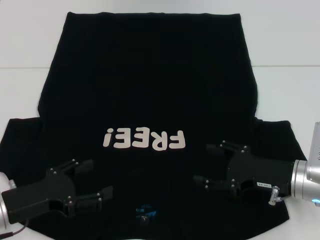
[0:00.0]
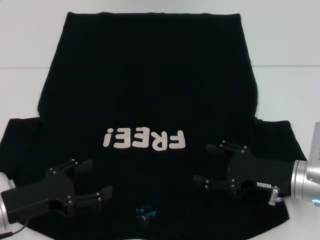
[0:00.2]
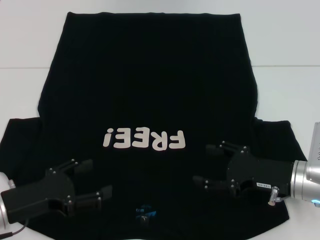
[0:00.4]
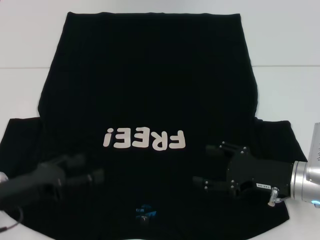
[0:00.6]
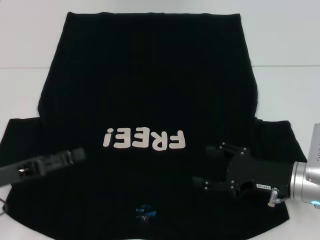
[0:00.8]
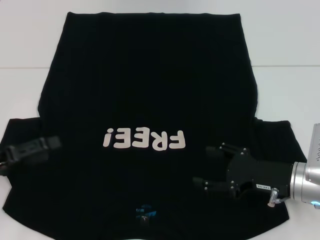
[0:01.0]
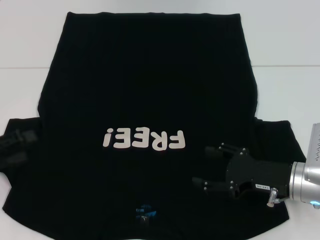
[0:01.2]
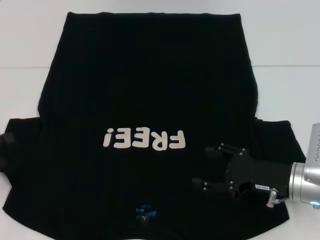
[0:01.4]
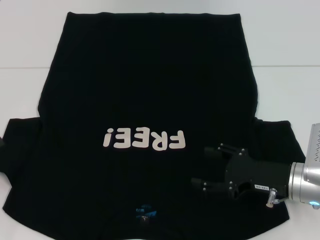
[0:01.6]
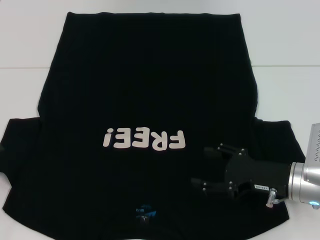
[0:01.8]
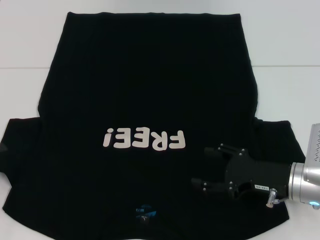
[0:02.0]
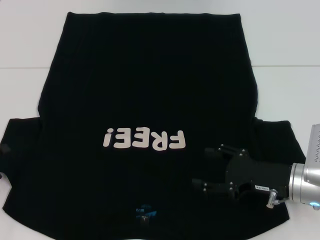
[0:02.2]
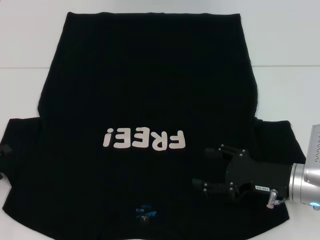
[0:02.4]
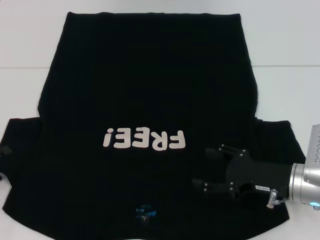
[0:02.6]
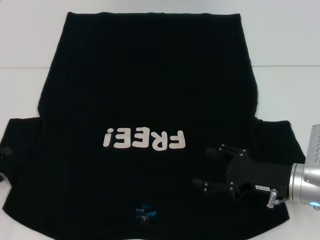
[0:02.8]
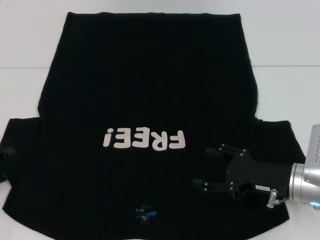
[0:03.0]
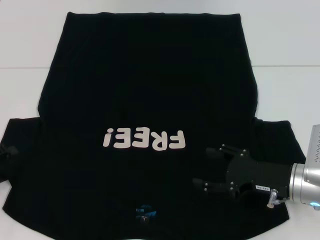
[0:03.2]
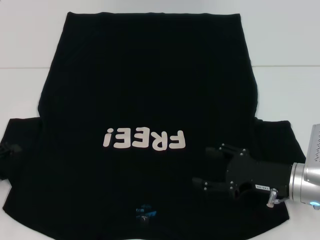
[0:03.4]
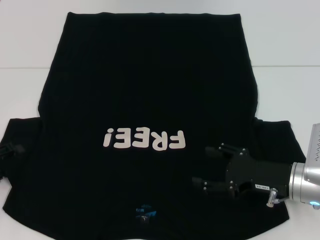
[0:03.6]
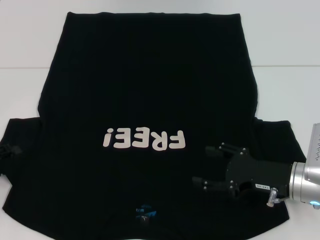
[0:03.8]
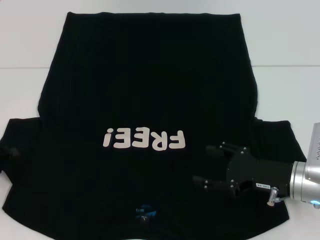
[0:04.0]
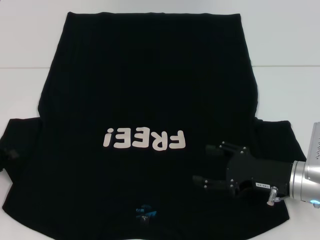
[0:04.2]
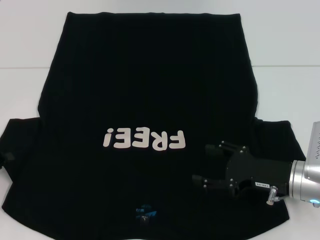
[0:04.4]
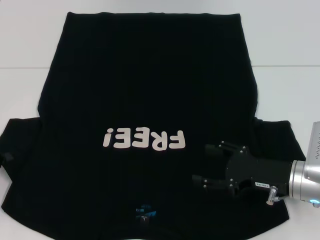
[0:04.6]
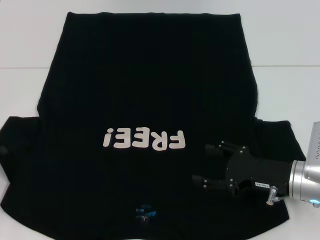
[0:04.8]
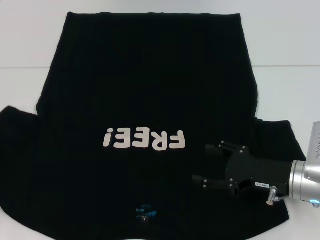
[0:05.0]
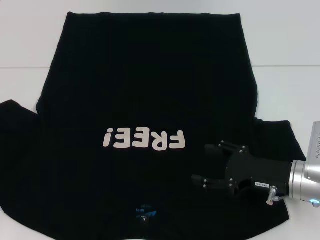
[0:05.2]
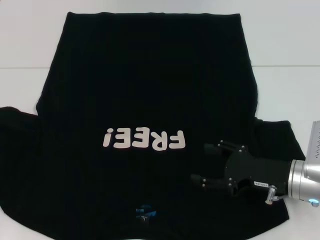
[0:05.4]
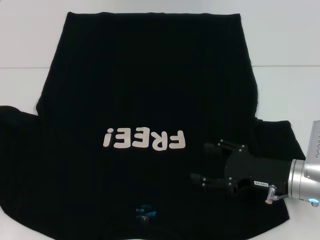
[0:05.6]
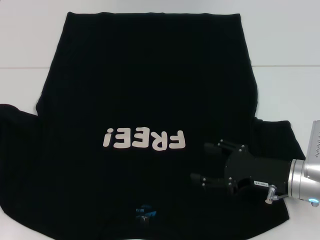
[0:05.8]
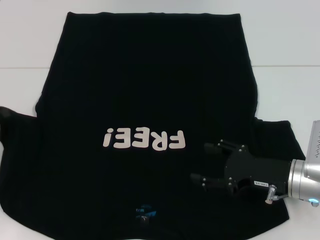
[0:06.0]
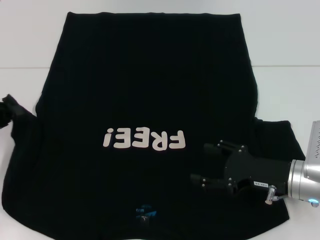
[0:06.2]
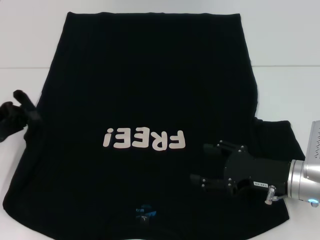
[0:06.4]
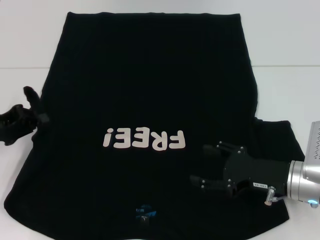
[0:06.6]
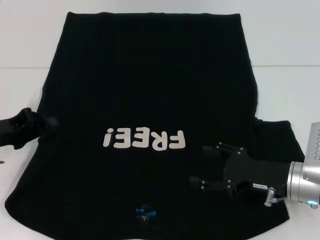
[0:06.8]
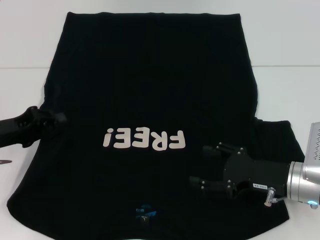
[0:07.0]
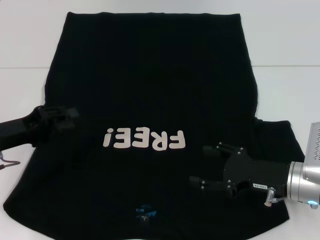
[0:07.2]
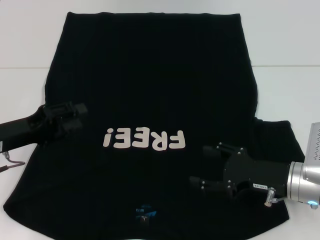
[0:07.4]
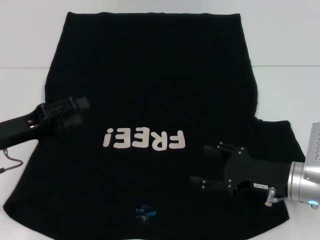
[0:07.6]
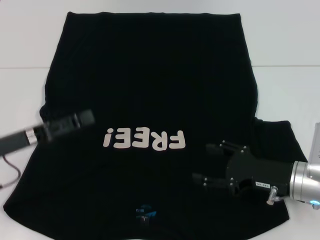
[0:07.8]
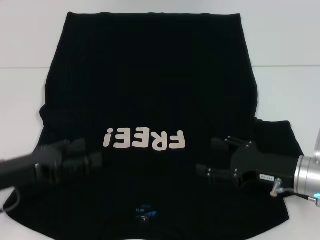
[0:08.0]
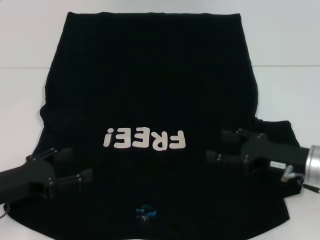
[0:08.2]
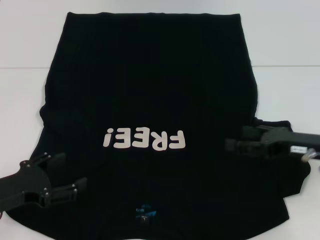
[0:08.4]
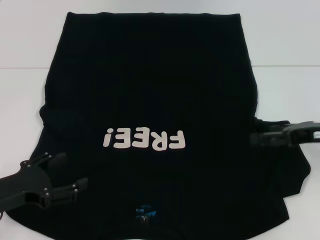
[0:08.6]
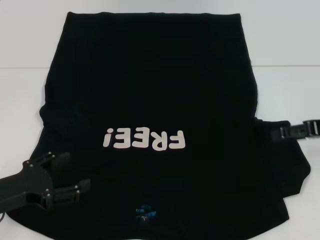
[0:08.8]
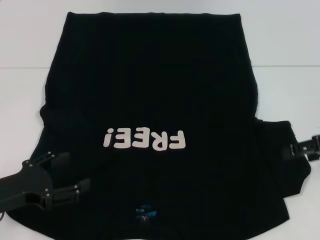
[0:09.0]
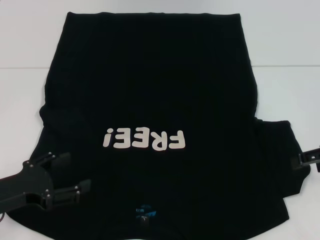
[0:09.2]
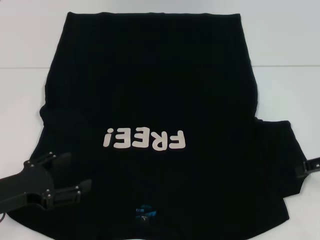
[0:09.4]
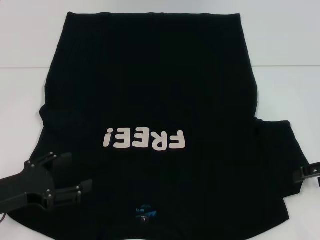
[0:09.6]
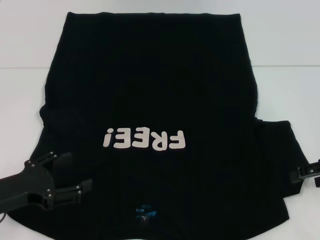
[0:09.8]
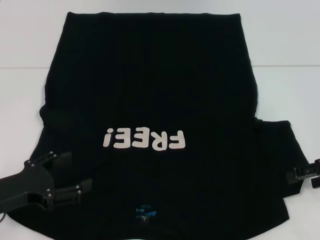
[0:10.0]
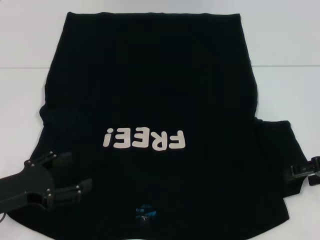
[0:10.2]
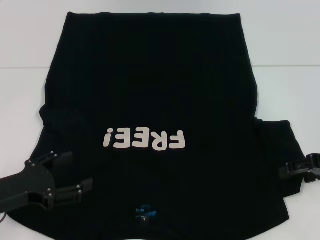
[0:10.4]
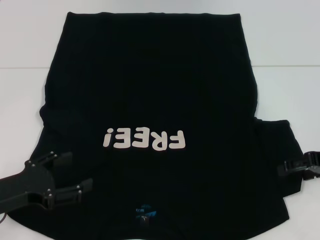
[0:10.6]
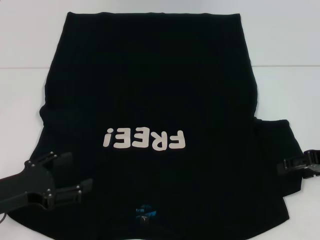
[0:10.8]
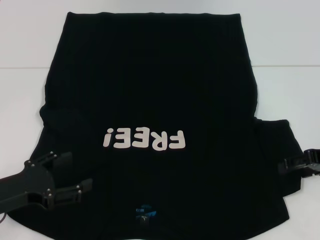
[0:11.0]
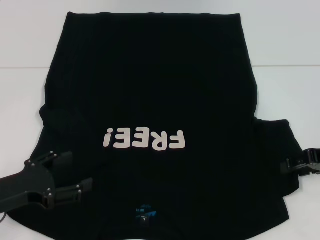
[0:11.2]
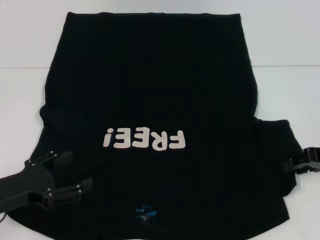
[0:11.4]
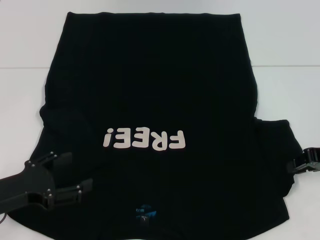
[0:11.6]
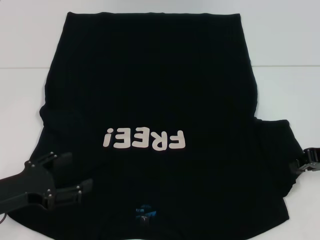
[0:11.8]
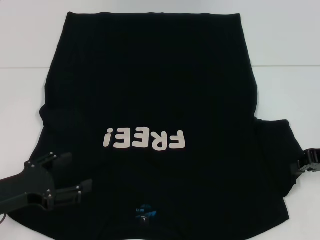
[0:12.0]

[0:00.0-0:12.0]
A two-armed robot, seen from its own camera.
Step, 0:00.0 to 0:07.8: Fold the bottom left sleeve with your left hand.
0:00.0 to 0:01.6: The left gripper moves to the left, some 15 cm.
0:04.4 to 0:06.0: The left gripper travels upward by some 5 cm.
0:06.0 to 0:07.6: The left gripper moves to the right, some 10 cm, and opens its fingers.
0:07.6 to 0:09.0: The left gripper goes approximately 5 cm backward, and opens up. The right gripper shifts some 15 cm upward and to the right.
0:09.0 to 0:10.4: There are only small adjustments of the grippers.
0:10.4 to 0:12.0: The right gripper closes.

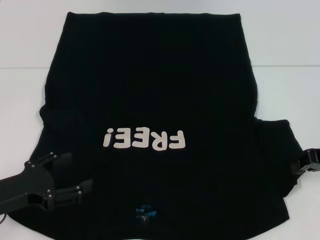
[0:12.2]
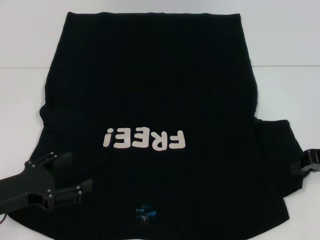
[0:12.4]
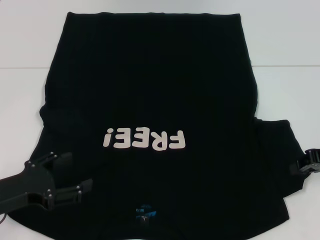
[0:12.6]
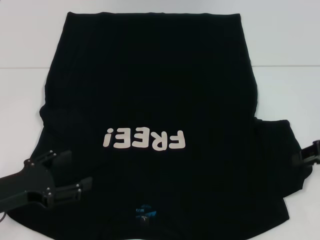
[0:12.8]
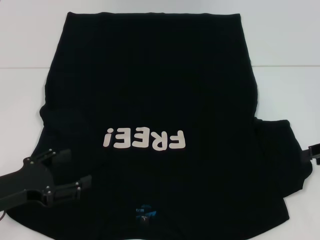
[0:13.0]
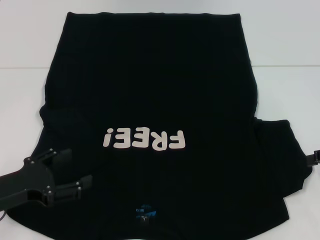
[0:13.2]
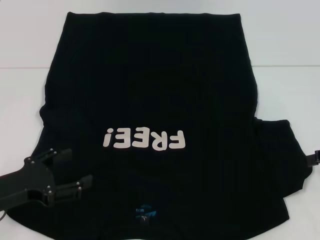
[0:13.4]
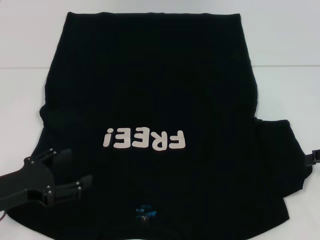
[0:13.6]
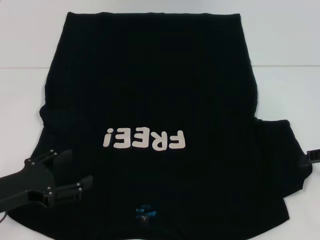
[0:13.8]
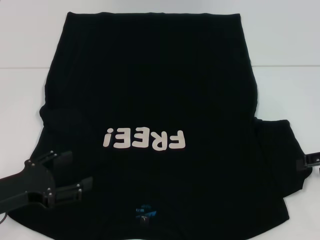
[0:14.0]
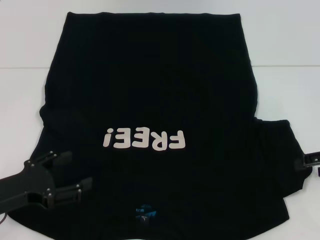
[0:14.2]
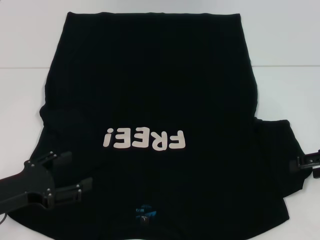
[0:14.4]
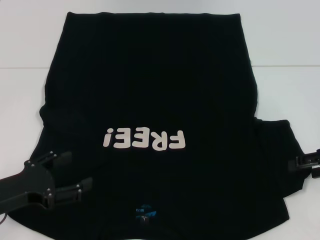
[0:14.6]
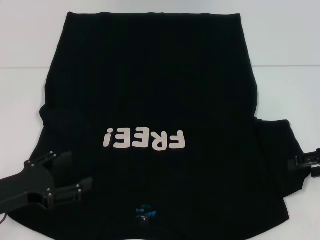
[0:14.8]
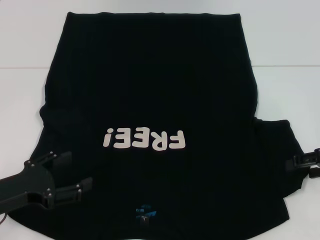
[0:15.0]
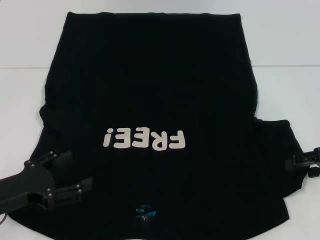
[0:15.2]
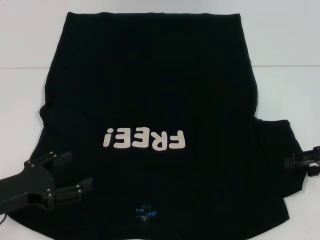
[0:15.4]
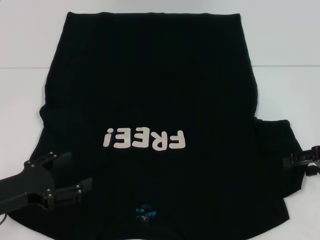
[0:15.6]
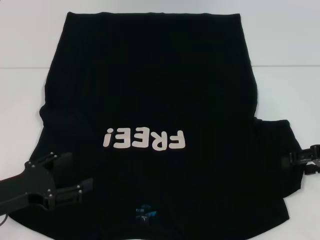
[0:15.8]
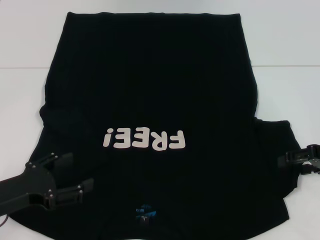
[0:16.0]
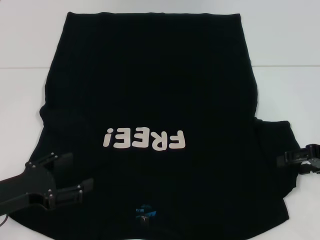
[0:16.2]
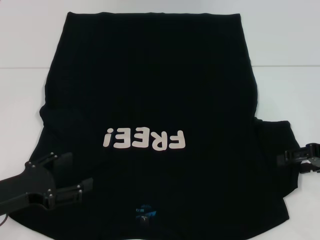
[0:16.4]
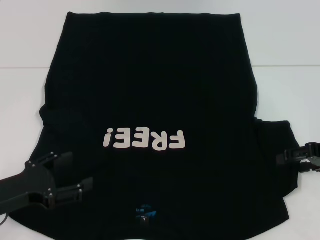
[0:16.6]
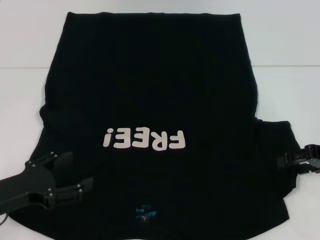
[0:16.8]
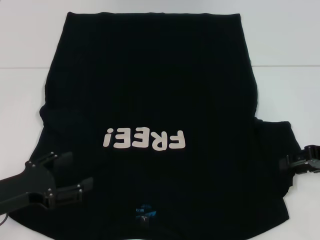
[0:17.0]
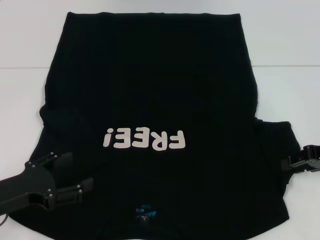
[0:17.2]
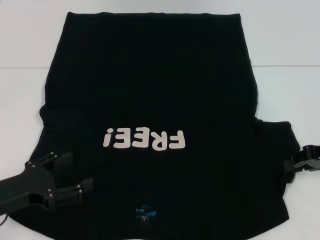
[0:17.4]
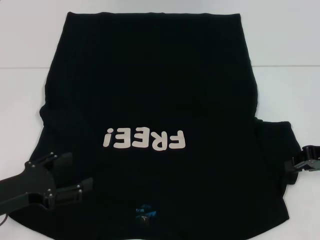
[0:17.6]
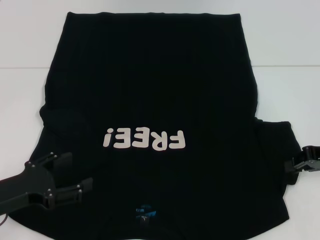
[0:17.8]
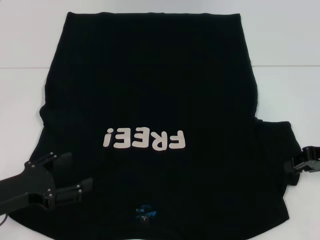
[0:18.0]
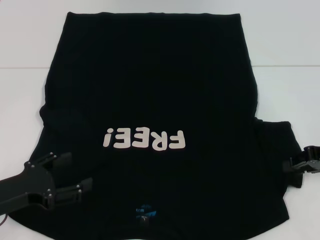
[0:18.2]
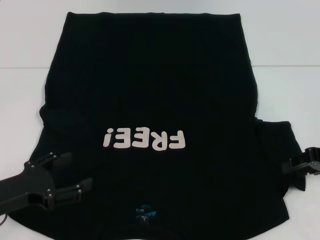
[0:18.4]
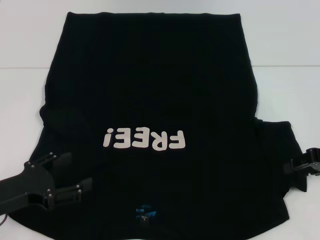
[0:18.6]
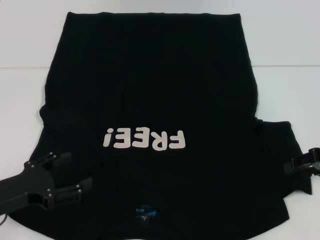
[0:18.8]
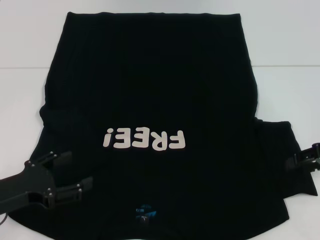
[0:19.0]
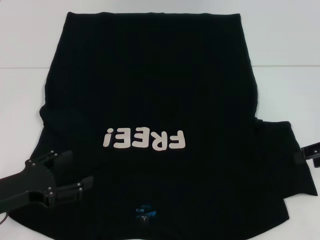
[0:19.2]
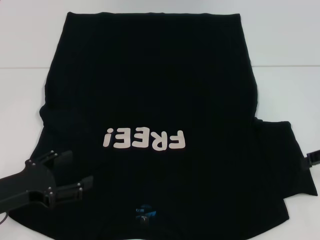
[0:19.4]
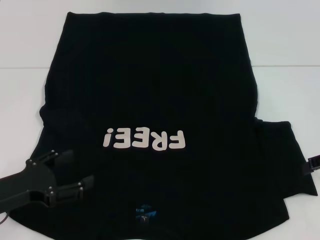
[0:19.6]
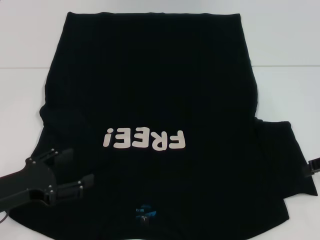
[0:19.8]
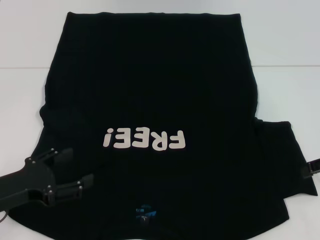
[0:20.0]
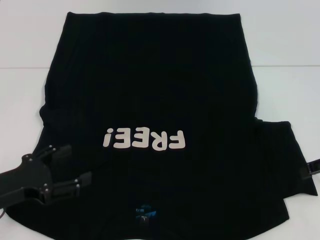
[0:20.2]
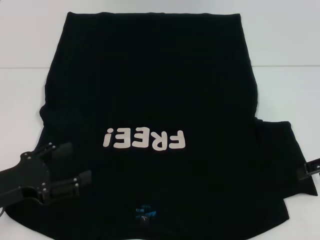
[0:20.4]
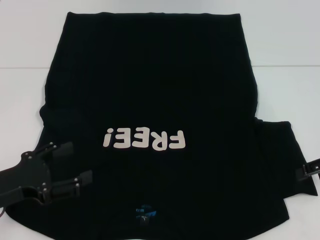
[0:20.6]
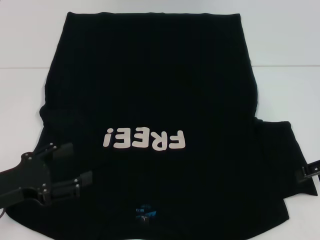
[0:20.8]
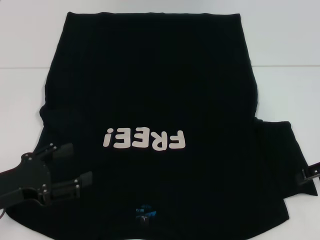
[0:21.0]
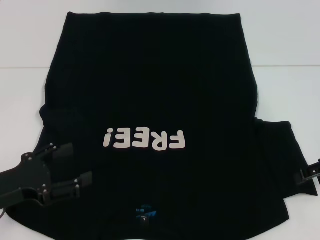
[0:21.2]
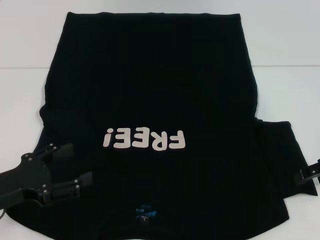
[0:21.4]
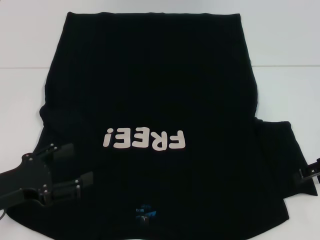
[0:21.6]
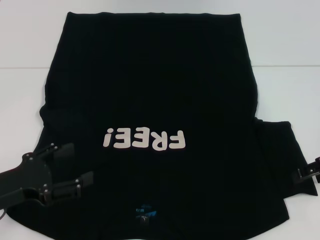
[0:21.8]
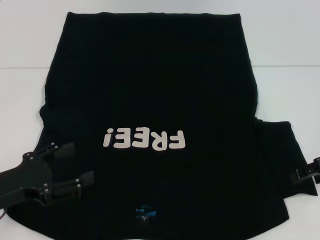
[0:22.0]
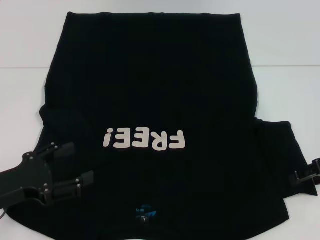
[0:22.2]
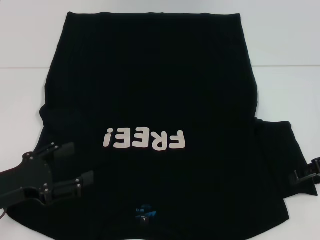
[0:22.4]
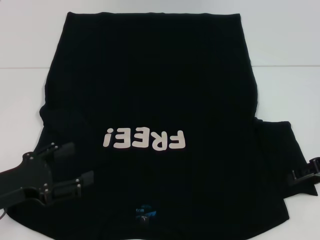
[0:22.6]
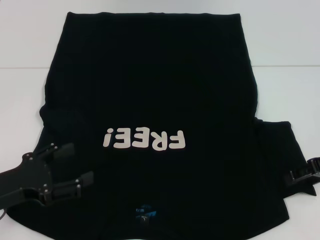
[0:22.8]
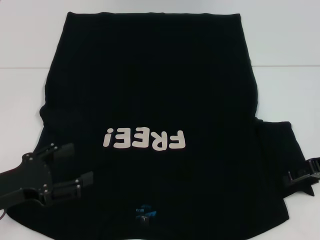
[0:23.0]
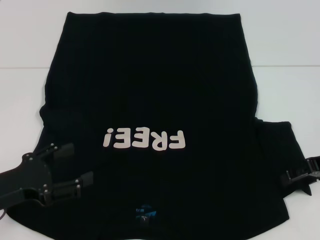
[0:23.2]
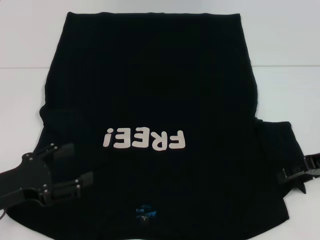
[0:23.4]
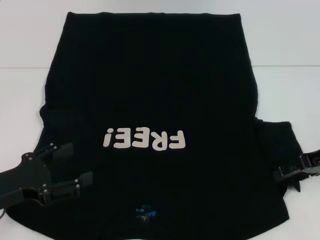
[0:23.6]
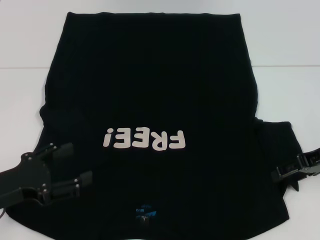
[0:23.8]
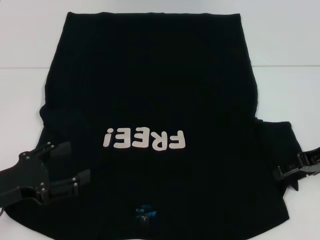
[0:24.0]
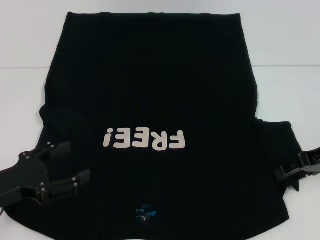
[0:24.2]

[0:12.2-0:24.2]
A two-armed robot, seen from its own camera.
0:12.2 to 0:13.8: The right gripper opens up.
0:15.2 to 0:16.6: Both grippers stay put.
0:16.6 to 0:18.2: The right gripper closes its fingers.
0:18.2 to 0:19.8: The right gripper opens its fingers.
0:19.8 to 0:21.2: There are only small adjustments of the grippers.
0:22.6 to 0:24.2: There are only small adjustments of the grippers.
